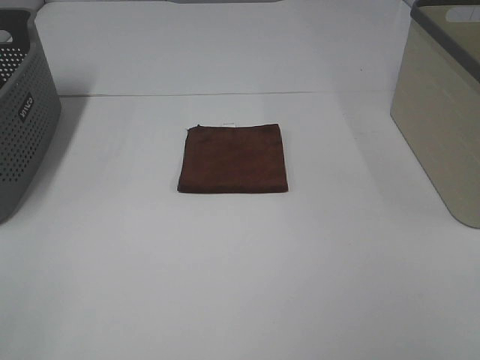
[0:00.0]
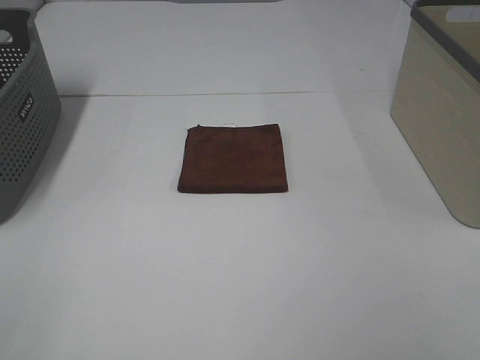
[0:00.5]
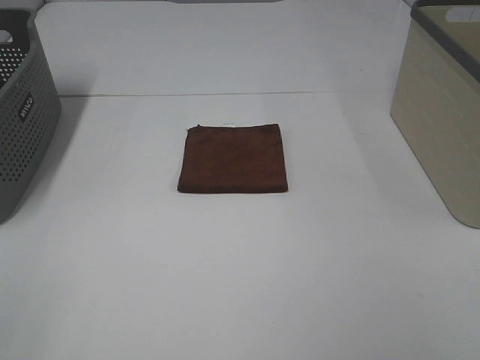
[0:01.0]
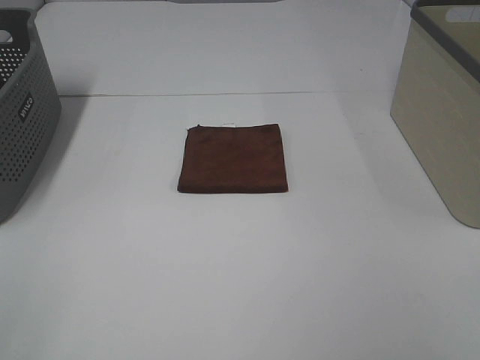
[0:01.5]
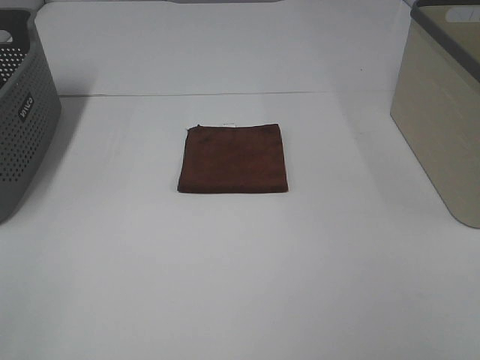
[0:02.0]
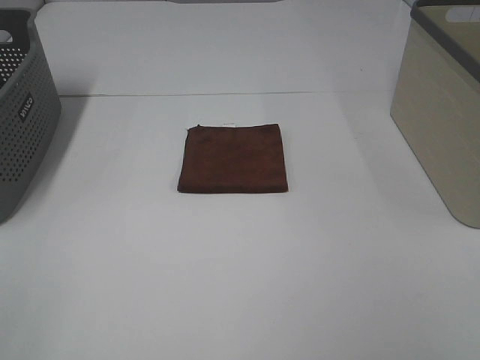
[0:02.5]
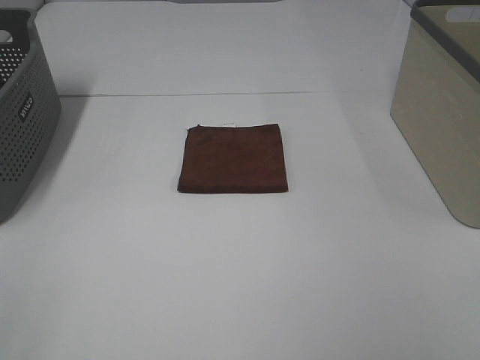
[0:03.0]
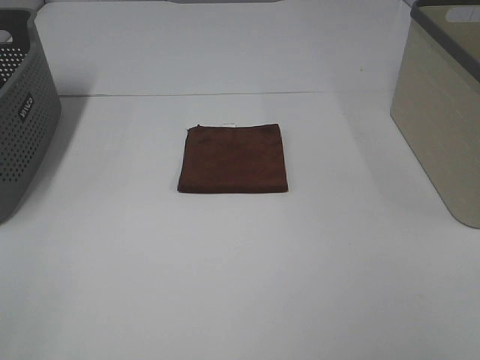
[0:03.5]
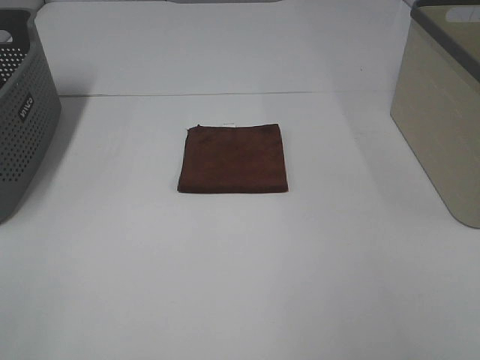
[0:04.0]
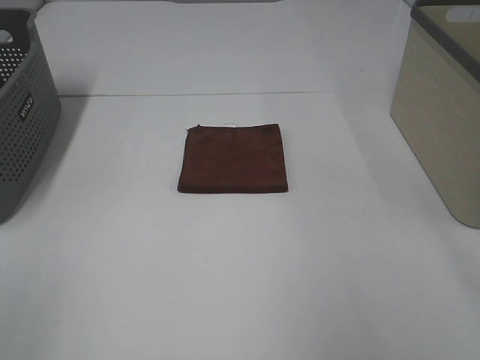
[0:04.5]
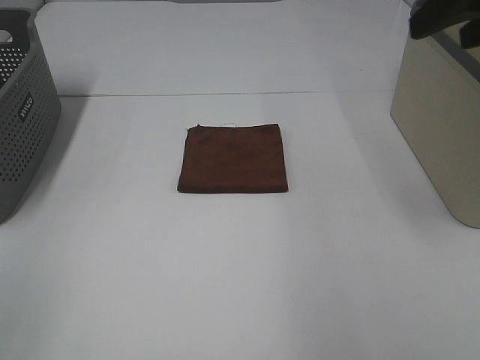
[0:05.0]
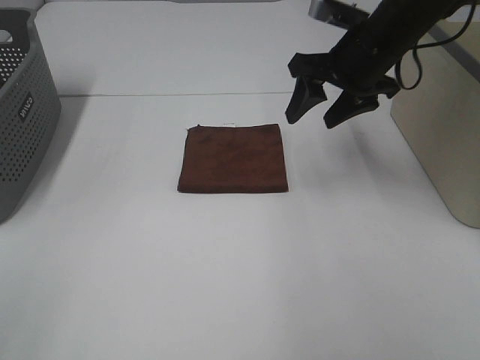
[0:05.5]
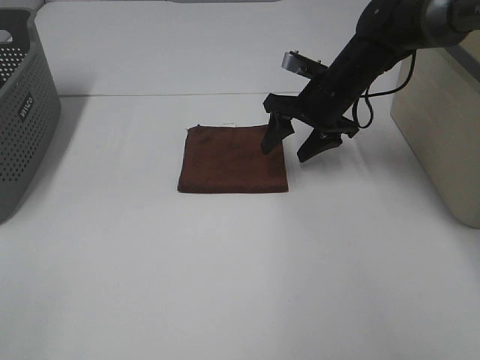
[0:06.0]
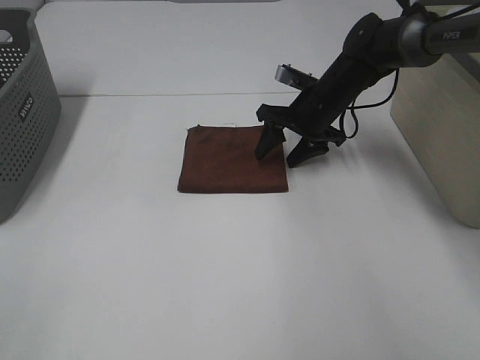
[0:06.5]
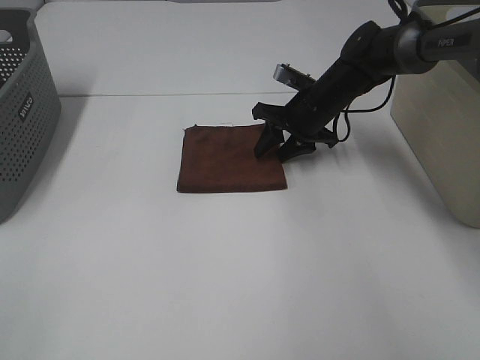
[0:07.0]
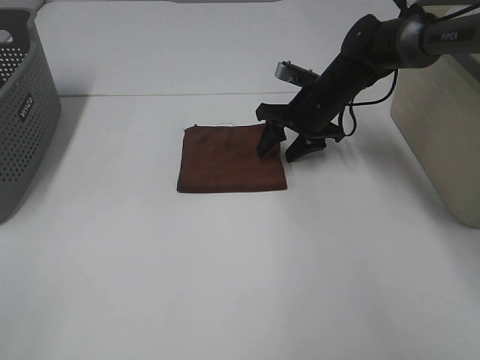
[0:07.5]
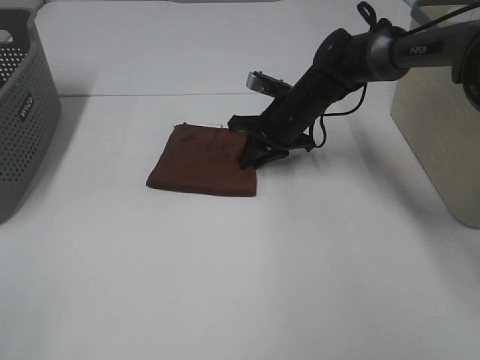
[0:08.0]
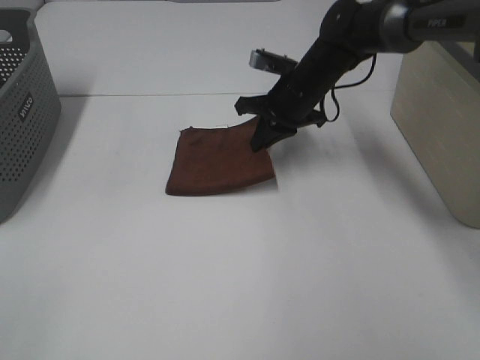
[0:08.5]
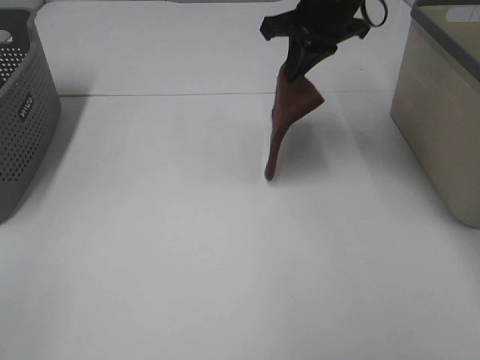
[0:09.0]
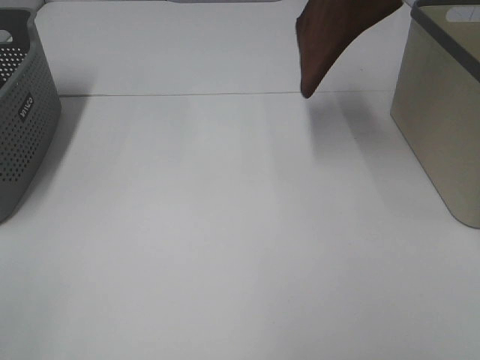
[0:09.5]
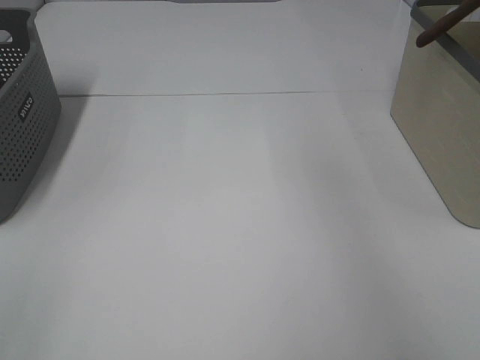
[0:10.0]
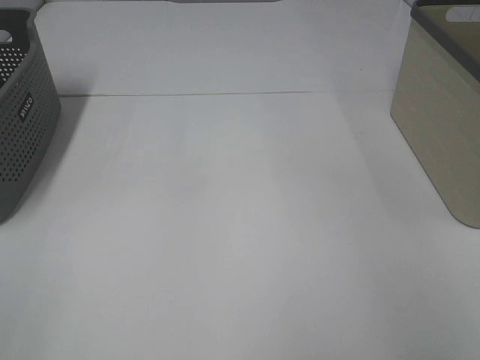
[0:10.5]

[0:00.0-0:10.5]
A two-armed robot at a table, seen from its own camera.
Step, 0:00.0 to 0:08.0: Right hand: grab the folded brown towel.
0:00.0 to 0:02.0: The two grippers keep their place.
0:04.0 to 0:06.5: The right gripper moves forward and downward, about 50 cm.
0:06.5 to 0:08.5: The right gripper ends up some 5 cm from where it was, and closes up.
0:08.5 to 0:10.5: The right gripper heads to the right and upward, covering some 40 cm.
